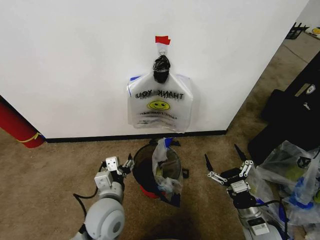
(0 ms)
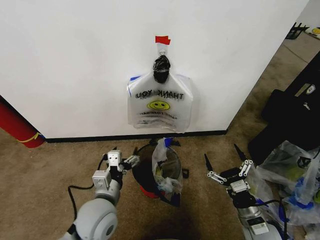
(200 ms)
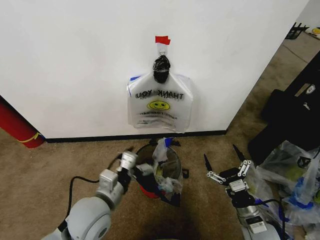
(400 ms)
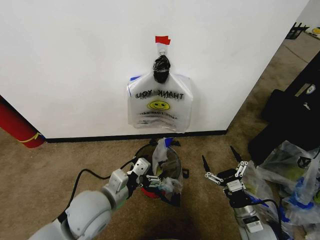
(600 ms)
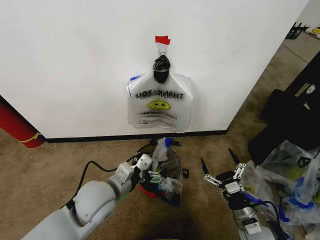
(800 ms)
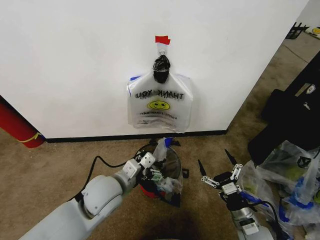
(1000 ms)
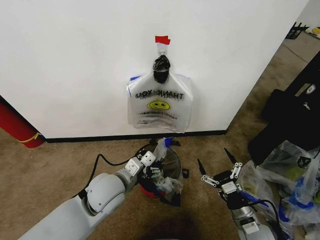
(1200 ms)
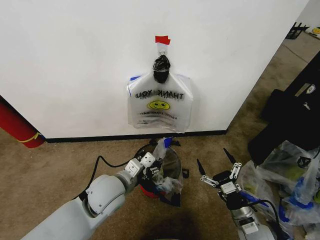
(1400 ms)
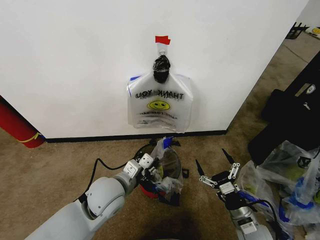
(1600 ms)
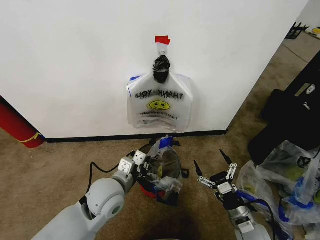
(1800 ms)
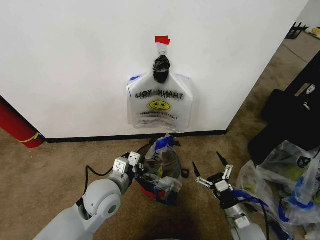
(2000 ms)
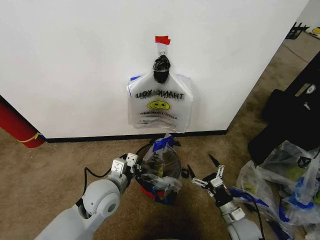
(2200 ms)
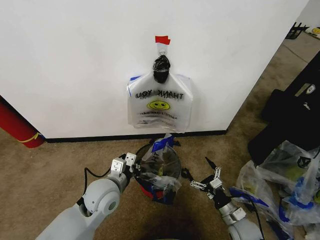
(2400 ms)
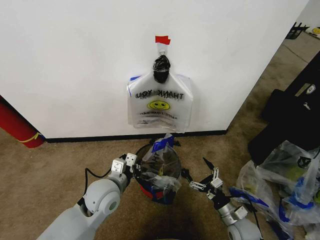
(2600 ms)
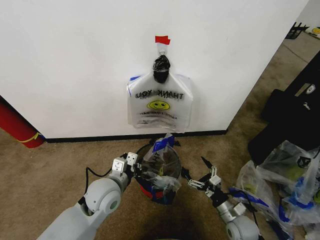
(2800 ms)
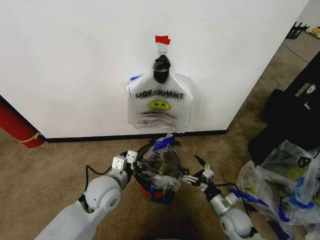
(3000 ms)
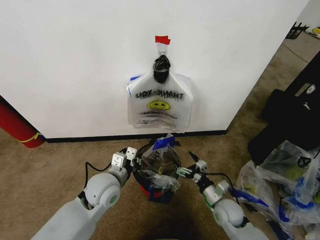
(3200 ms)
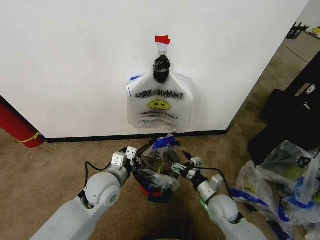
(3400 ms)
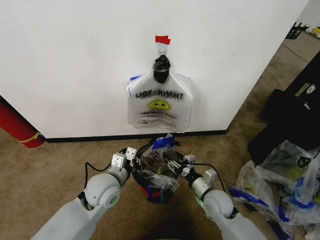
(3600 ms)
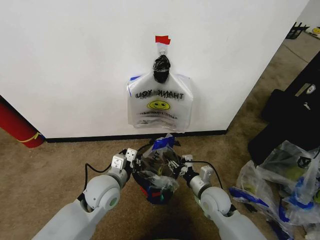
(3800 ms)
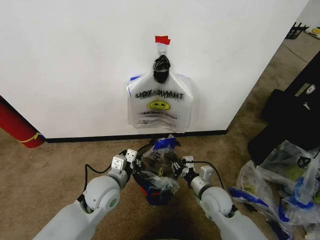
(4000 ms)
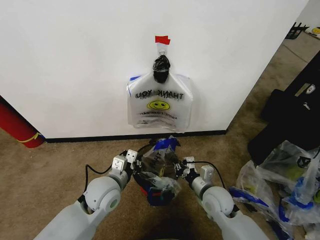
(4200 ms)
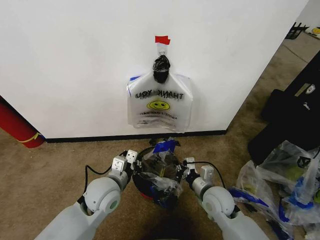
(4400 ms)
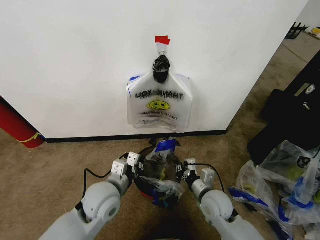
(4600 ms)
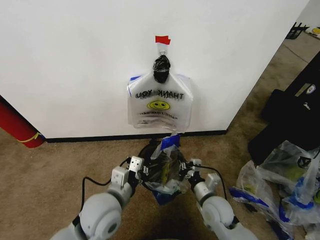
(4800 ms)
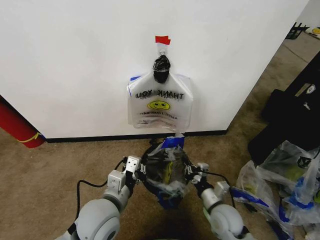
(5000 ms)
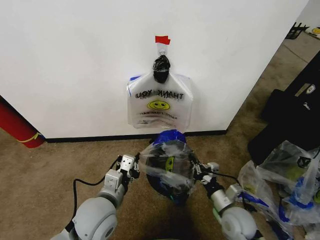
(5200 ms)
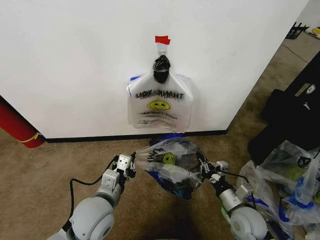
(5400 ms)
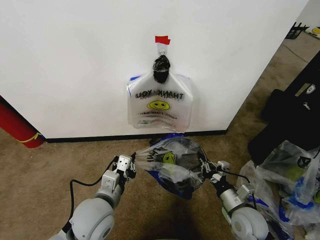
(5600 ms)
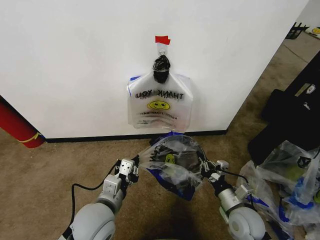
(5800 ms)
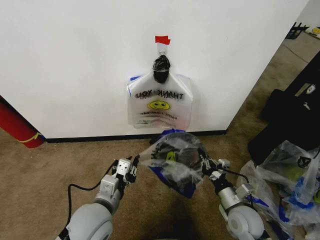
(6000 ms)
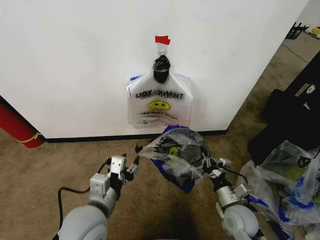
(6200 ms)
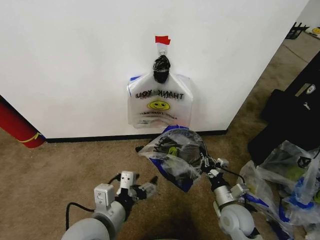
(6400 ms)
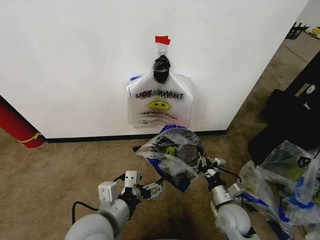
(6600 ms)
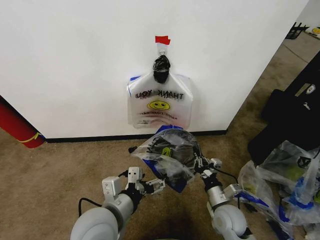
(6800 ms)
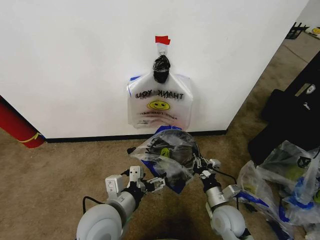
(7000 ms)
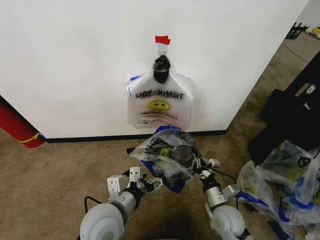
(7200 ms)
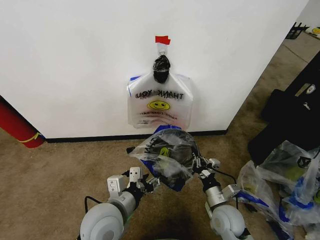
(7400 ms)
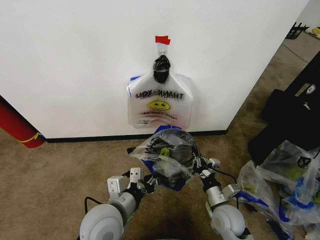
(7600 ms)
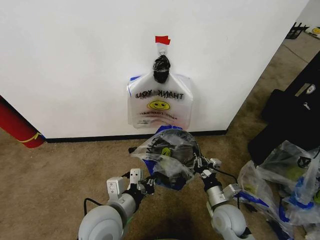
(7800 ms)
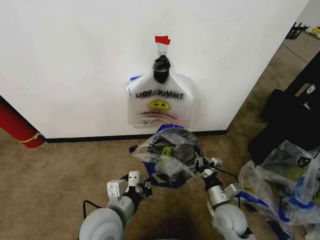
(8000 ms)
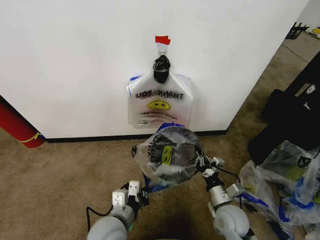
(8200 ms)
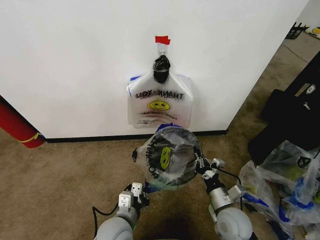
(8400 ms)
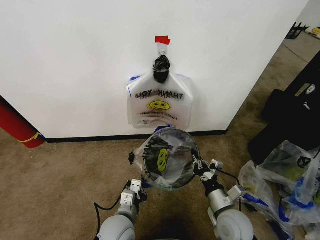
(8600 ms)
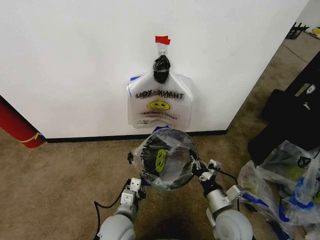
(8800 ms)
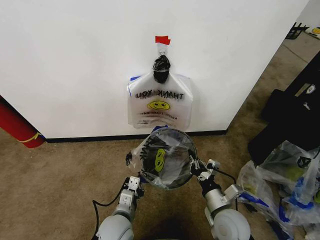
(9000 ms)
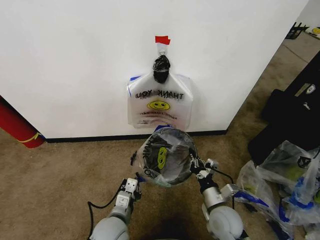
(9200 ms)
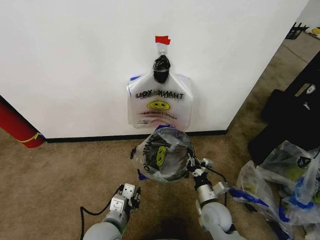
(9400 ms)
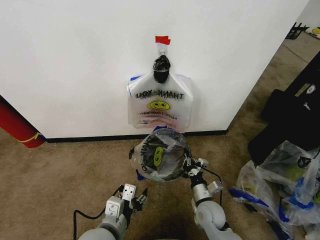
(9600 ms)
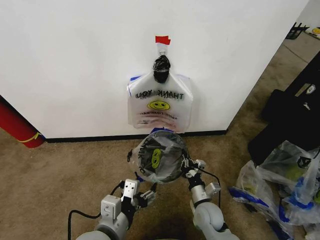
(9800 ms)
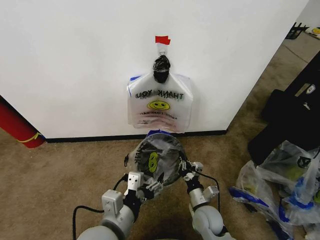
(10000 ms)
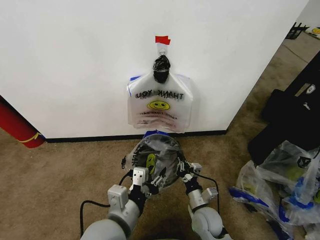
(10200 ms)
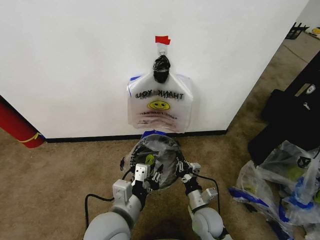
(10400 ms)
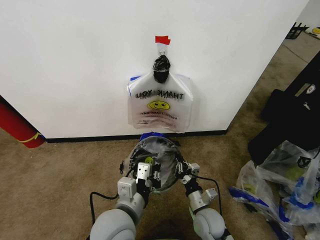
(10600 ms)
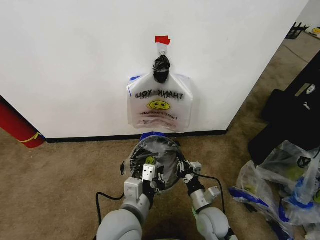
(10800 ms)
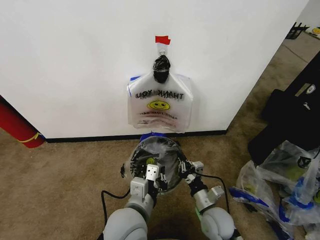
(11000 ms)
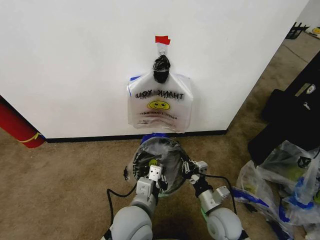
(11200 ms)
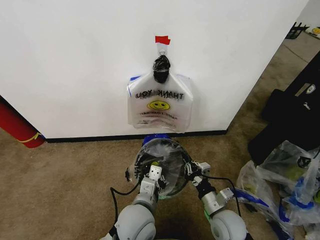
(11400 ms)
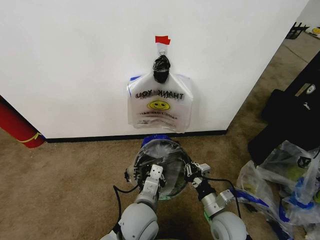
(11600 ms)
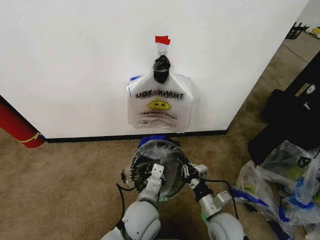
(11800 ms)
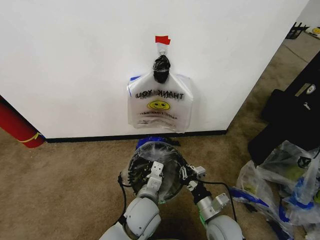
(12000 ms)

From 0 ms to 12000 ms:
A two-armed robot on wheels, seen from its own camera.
Task of the whole recording: Pick up the garbage bag from the wall and place it over the trash bin.
From 0 ms to 1600 ms: The left gripper changes place by about 5 cm, and closes up.
From 1600 ms to 3000 ms: The right gripper heads forward, covering approximately 5 cm.
From 3000 ms to 4400 ms: The right gripper travels upward and to the left by roughly 10 cm, and closes.
From 4400 ms to 6000 ms: The left gripper moves backward, some 10 cm, while the right gripper is displaced to the right and backward by some 10 cm.
From 6000 ms to 7600 ms: The left gripper opens and closes again.
From 7600 ms to 9000 ms: The left gripper shifts approximately 10 cm downward; the right gripper shifts by roughly 5 cm.
From 9000 ms to 10400 ms: The right gripper goes roughly 10 cm downward. Meanwhile the left gripper moves upward, about 15 cm, and opens, then closes once more.
From 10400 ms to 12000 ms: The right gripper moves about 5 cm, while the left gripper heads downward, forward and to the right, covering roughly 15 cm.

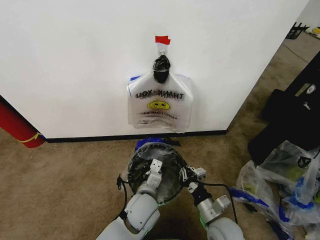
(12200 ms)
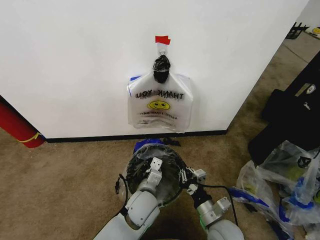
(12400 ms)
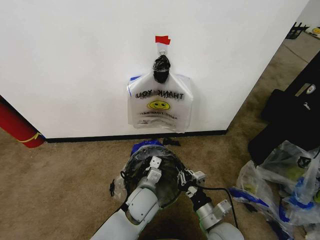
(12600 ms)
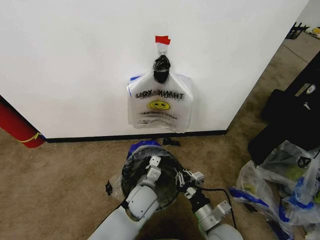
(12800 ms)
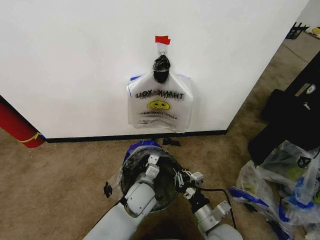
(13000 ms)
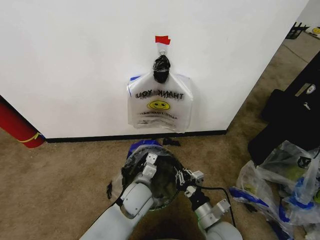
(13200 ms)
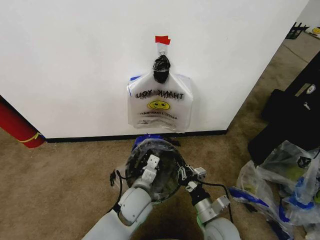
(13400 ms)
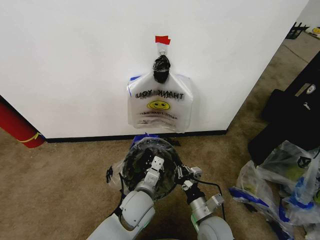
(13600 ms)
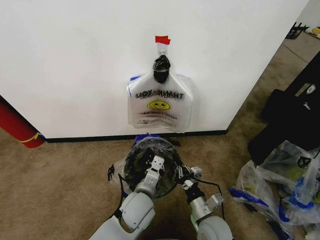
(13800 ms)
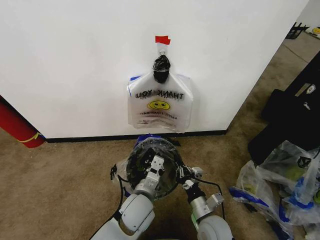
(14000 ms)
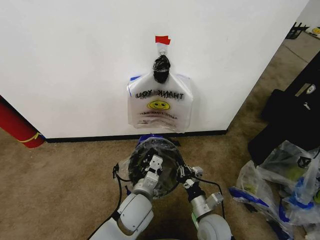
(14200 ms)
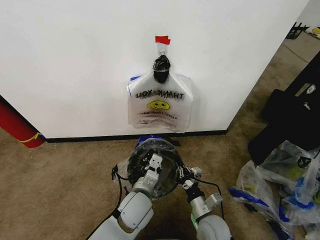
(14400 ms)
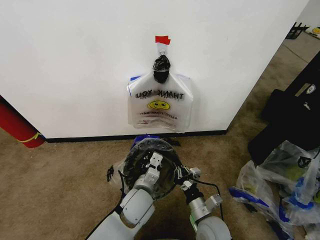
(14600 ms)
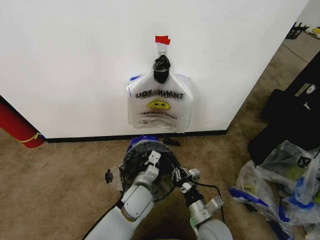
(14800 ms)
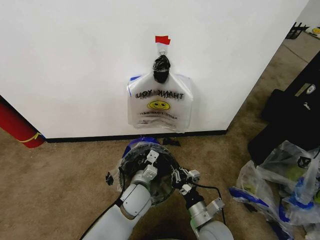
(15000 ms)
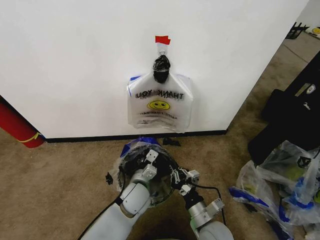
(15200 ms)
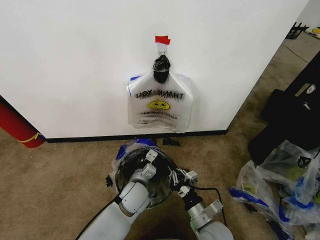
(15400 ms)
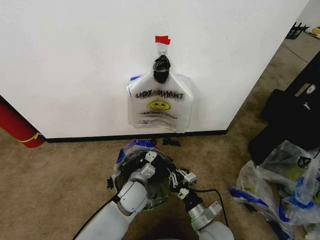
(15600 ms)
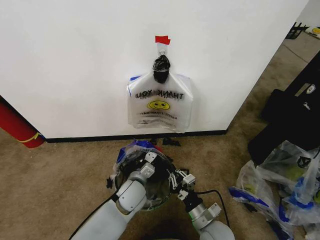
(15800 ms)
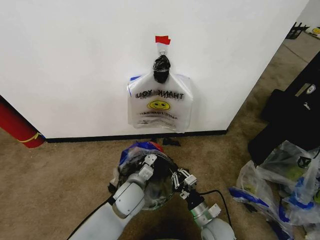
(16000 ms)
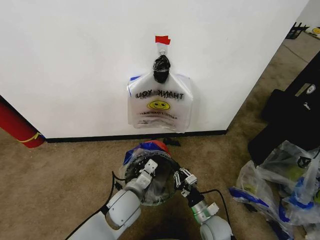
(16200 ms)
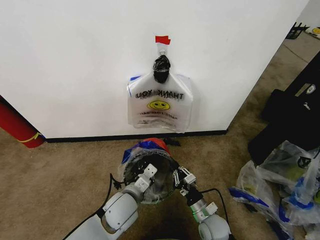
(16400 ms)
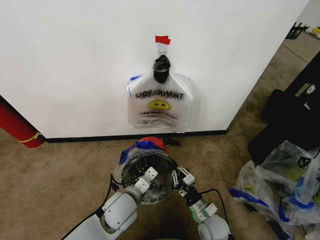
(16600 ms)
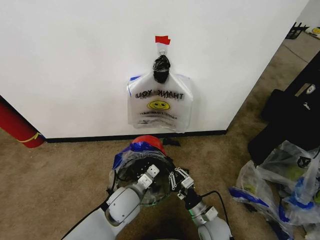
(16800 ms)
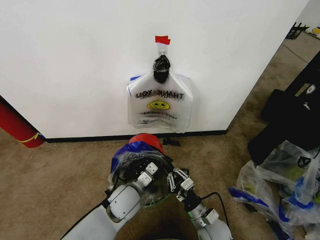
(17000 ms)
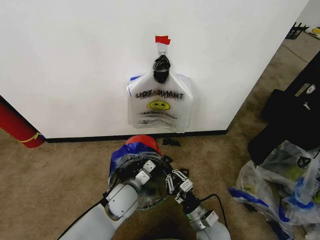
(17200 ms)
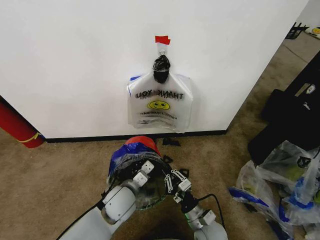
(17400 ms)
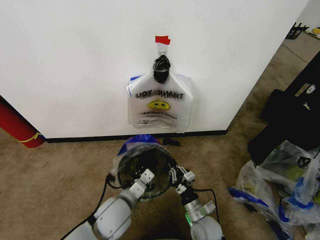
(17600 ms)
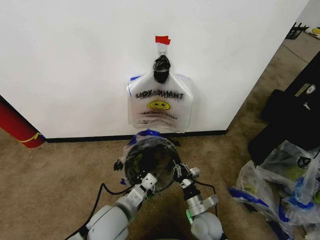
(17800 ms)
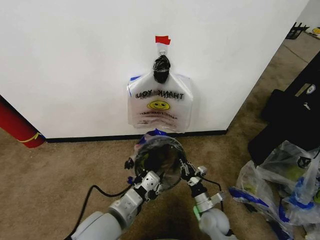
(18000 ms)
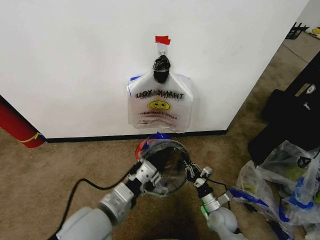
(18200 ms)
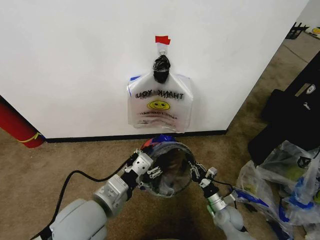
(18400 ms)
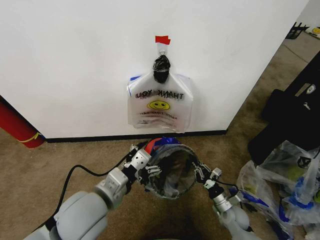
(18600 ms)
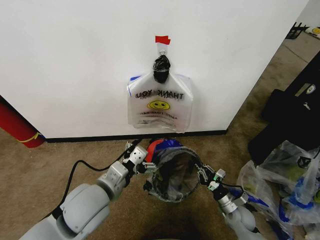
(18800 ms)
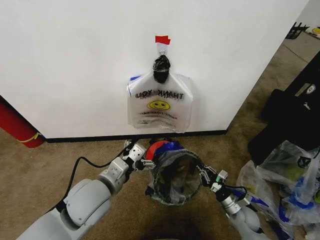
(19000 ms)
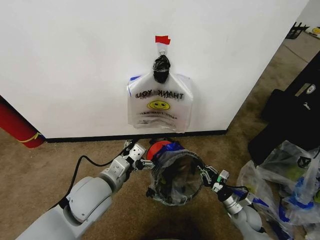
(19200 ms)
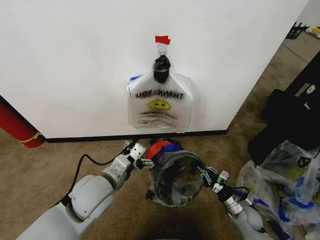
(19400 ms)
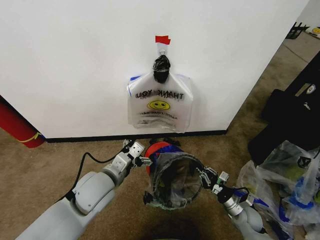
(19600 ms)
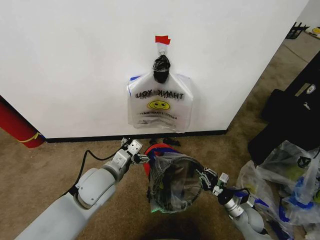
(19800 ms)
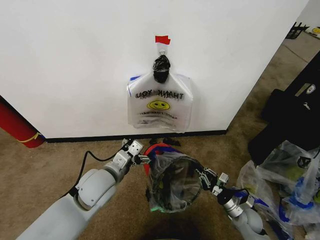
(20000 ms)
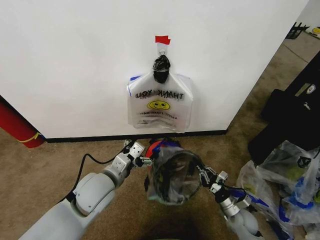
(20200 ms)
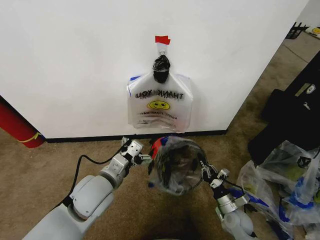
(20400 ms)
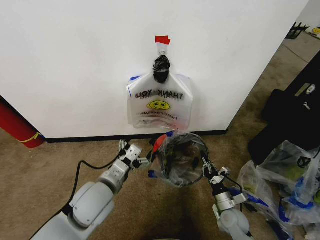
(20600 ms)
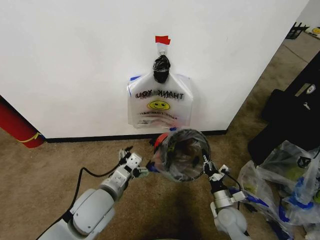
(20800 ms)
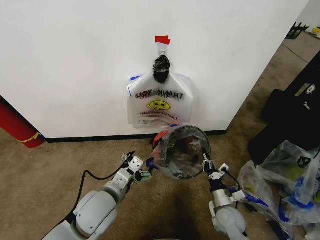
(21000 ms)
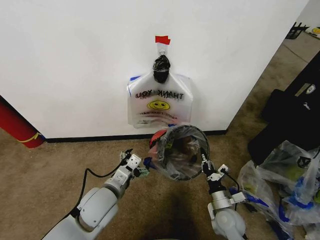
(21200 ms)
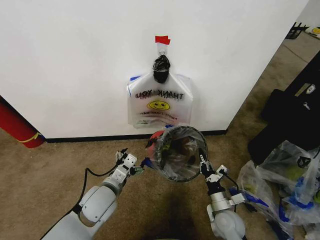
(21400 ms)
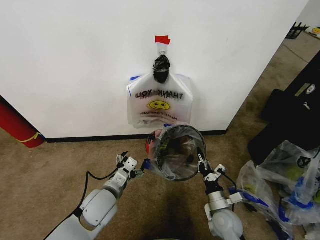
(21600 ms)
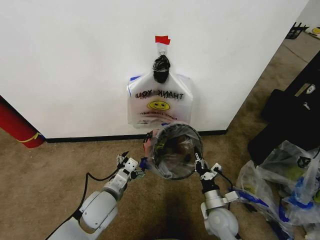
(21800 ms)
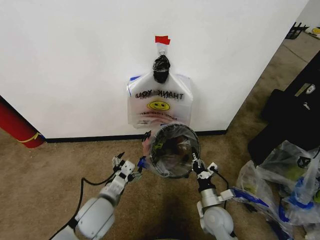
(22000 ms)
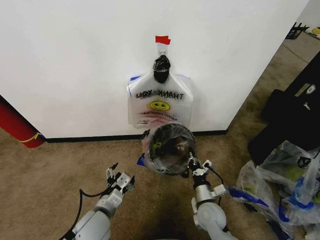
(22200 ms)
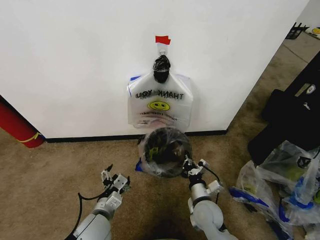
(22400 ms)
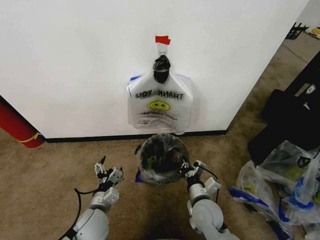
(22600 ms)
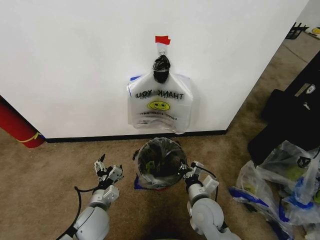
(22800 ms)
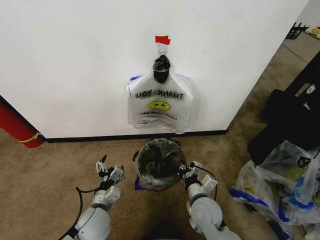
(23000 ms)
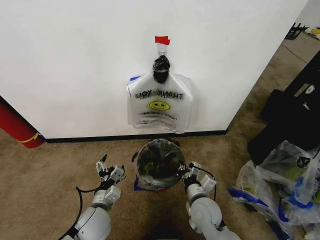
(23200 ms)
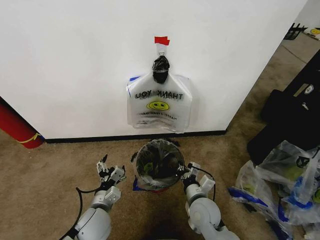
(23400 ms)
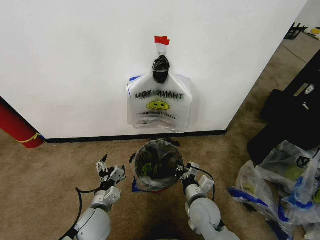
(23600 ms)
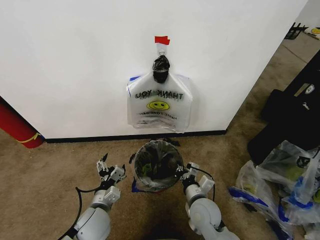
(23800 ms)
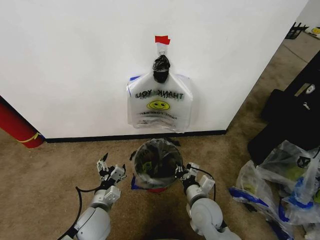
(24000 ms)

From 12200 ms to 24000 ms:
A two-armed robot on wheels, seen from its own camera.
Task of the whole recording: Pick up the garbage bag from the wall and place it over the trash bin.
From 12200 ms to 13600 ms: The grippers stay close to where they were, moving slightly.
From 13600 ms to 15200 ms: The left gripper shifts by approximately 5 cm.
From 15200 ms to 16600 ms: The left gripper travels backward by some 5 cm, while the right gripper heads downward, covering approximately 5 cm.
From 16600 ms to 18200 ms: The left gripper shifts some 15 cm upward and backward, and opens its fingers; the right gripper goes about 5 cm to the right.
From 18200 ms to 19600 ms: The right gripper heads to the right, covering roughly 10 cm. Meanwhile the left gripper heads forward, covering approximately 10 cm, and opens up.
From 19600 ms to 21000 ms: The right gripper goes approximately 10 cm to the left. Meanwhile the left gripper moves some 5 cm.
From 21000 ms to 22600 ms: The right gripper heads to the left and upward, covering about 15 cm; the left gripper heads downward, covering about 10 cm.
From 22600 ms to 24000 ms: The grippers make only small movements.
